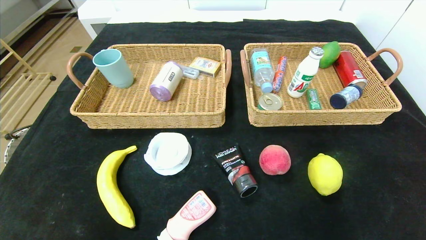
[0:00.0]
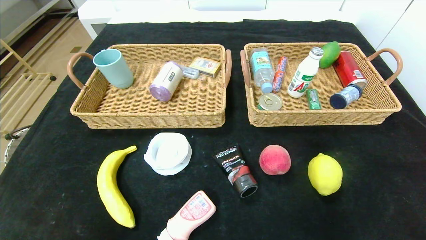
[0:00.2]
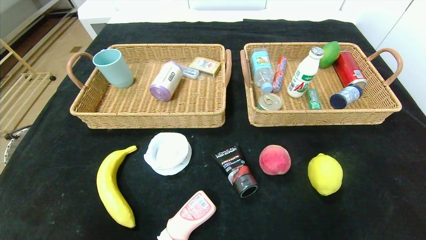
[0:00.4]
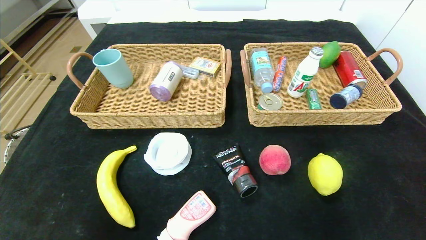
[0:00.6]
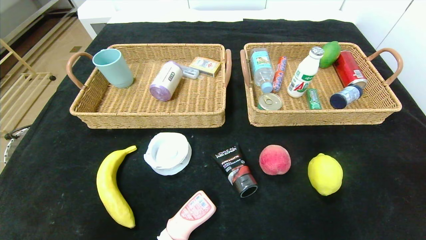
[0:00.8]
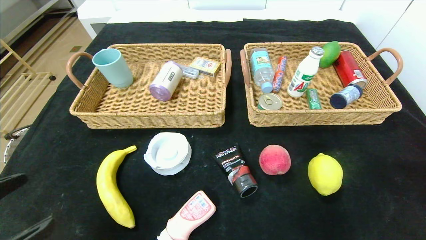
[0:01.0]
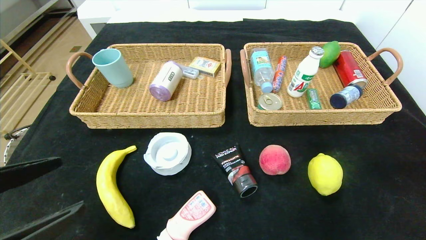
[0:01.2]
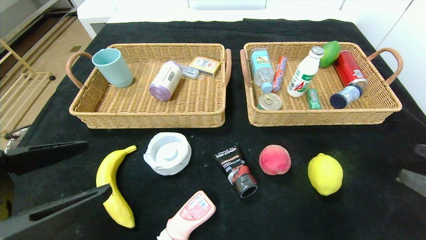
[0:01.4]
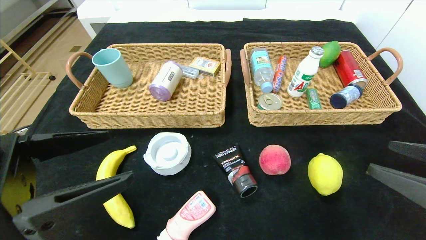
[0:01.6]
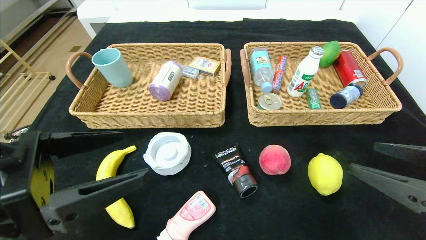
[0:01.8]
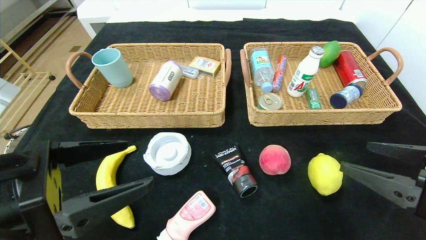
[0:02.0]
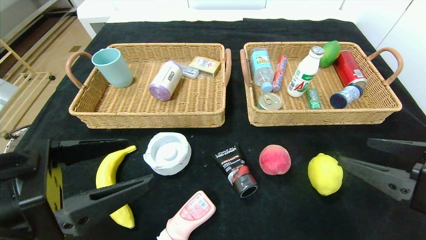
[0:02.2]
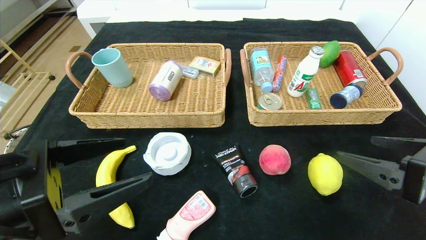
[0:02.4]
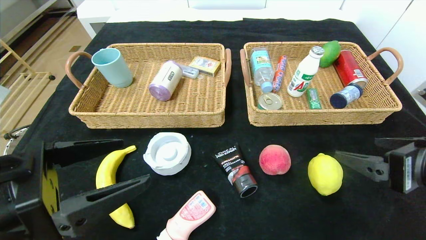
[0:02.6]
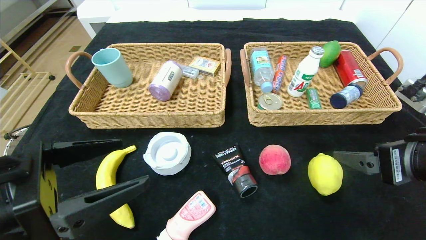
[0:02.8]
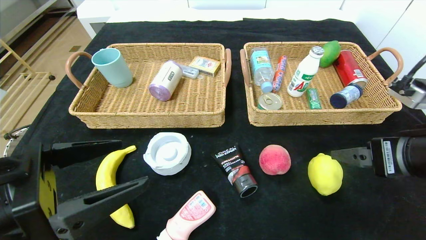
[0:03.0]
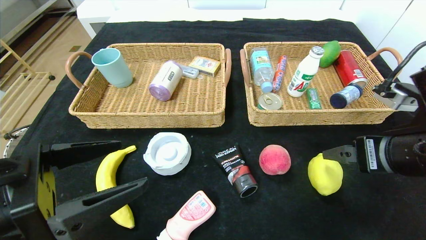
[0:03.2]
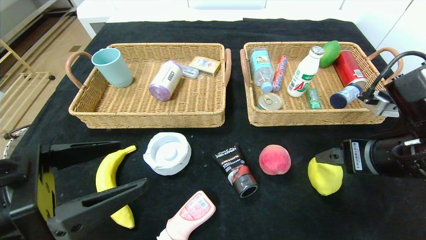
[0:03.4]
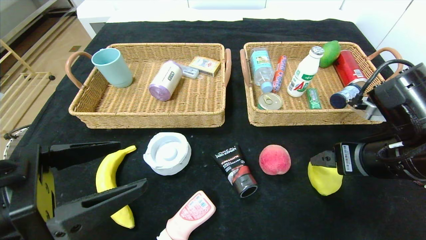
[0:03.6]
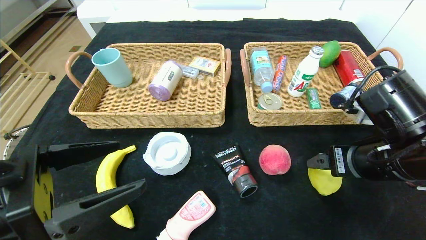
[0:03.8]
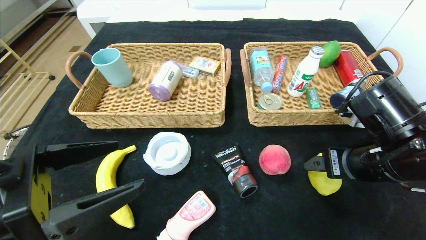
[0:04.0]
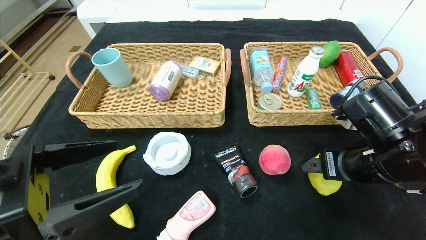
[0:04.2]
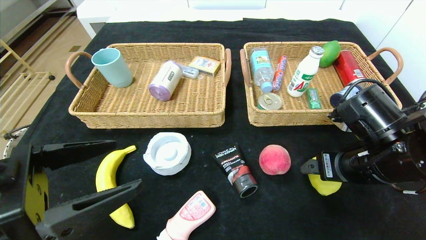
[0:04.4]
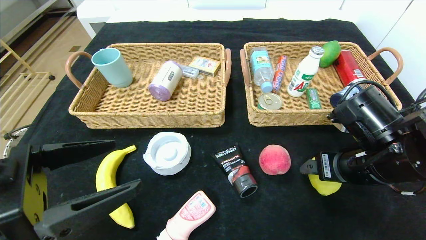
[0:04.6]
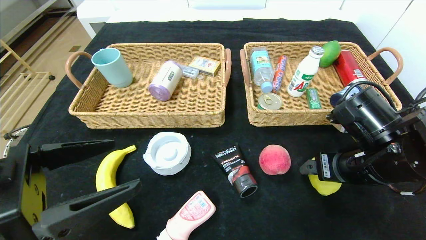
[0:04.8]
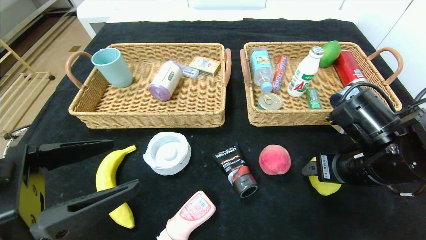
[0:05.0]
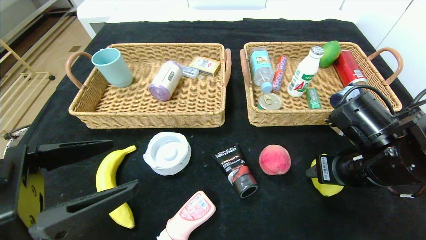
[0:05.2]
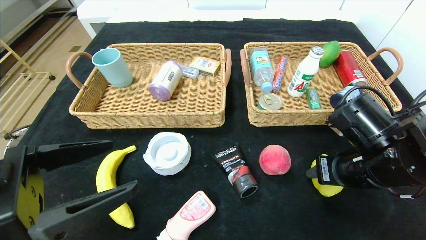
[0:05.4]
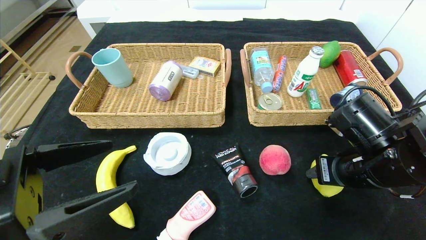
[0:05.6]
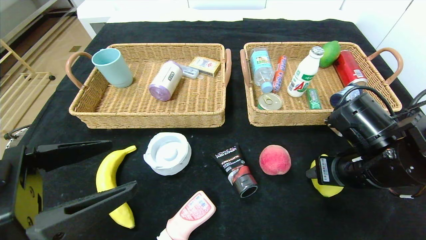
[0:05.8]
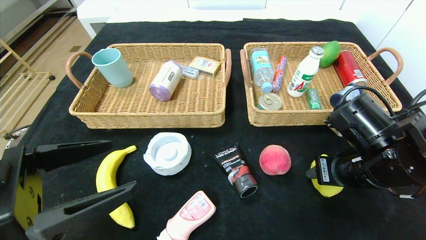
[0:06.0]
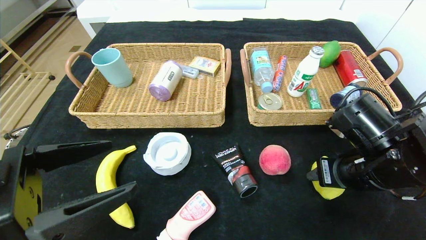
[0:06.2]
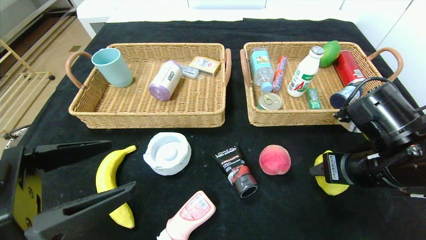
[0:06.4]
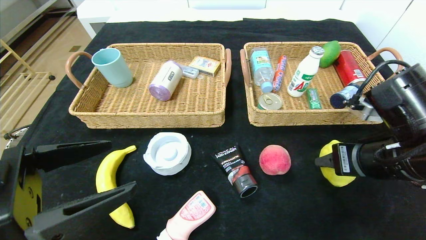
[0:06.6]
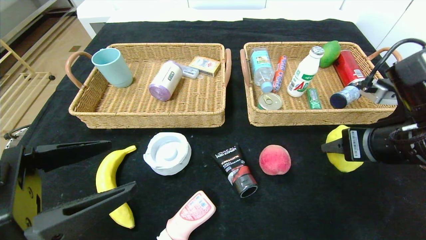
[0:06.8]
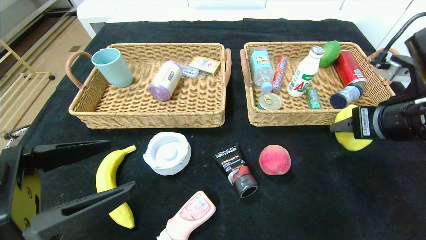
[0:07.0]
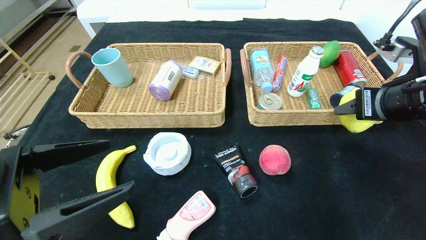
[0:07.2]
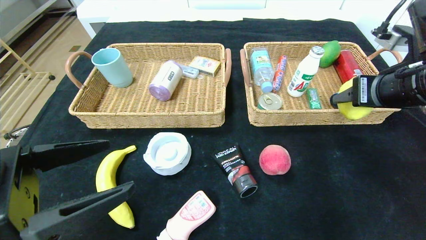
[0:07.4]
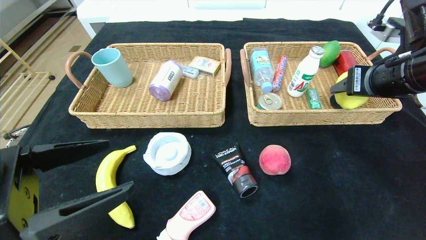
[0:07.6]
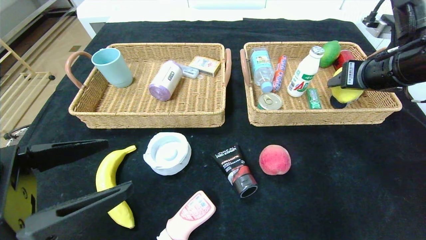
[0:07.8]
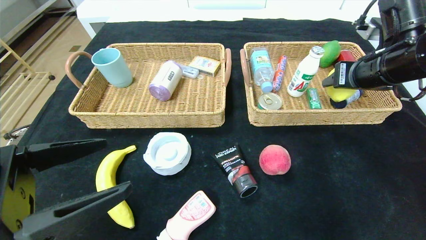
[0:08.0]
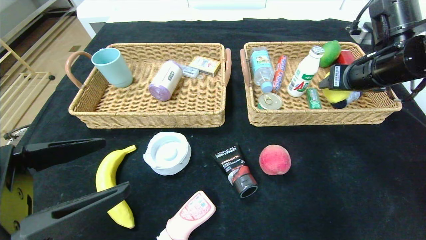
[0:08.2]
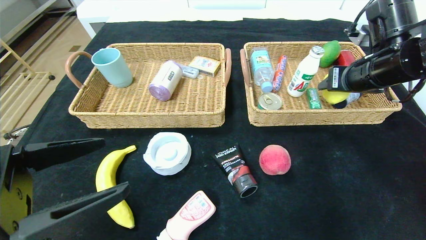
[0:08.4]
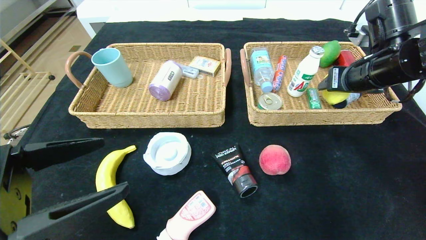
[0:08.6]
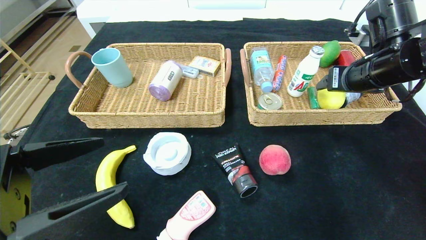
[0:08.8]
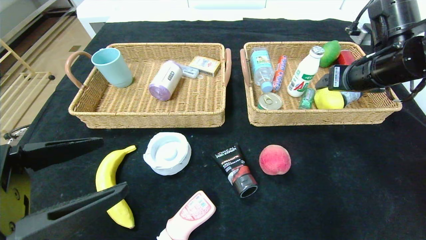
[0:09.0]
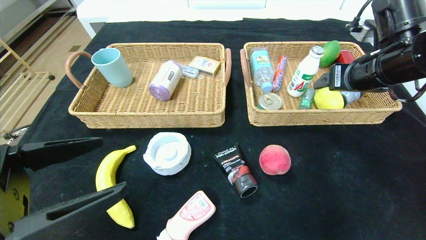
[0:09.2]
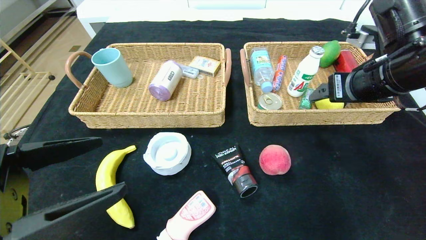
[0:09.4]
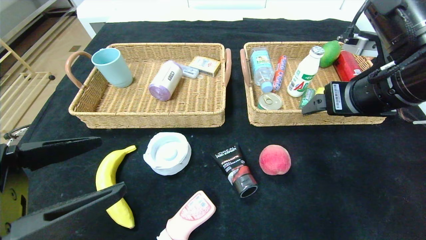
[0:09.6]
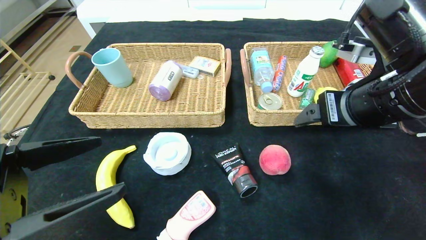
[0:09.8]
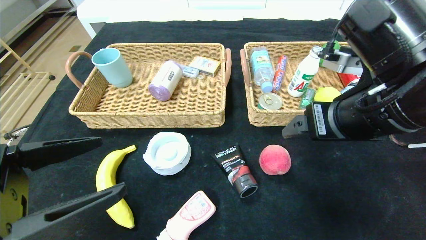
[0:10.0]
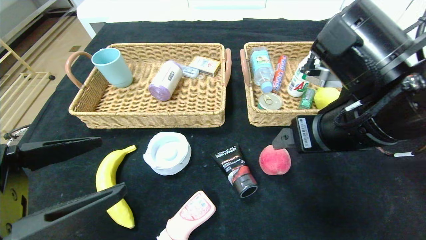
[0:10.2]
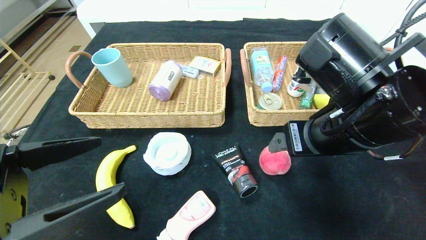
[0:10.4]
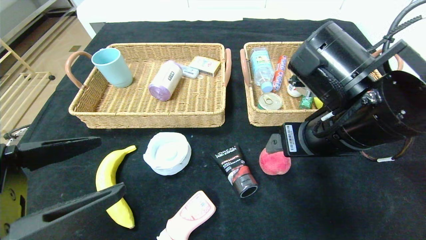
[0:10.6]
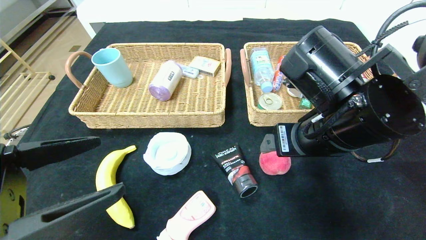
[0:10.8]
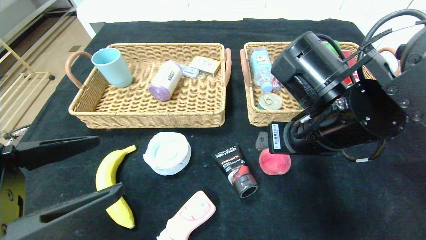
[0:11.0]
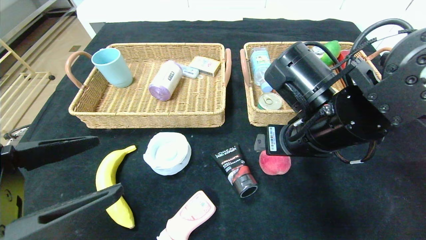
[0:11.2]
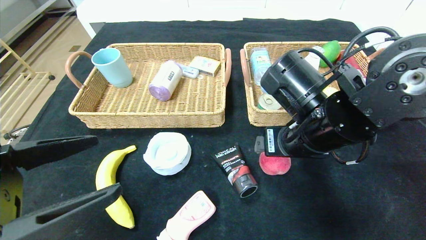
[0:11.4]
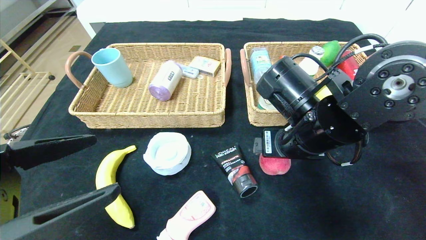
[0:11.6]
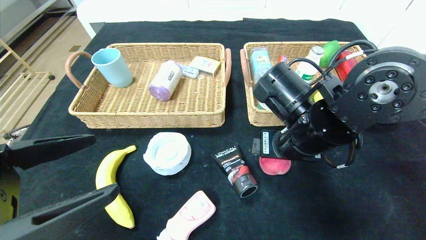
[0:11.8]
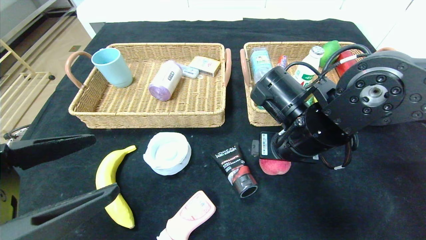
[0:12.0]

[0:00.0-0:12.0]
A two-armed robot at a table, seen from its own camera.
Step, 0:00.0 to 0:10.2: Pick up the lemon and put it in the right basket.
0:00.0 to 0:01.6: The grippers both shift upward and forward by some 20 cm.
0:01.6 to 0:03.0: The right gripper moves forward, roughly 5 cm.
0:03.0 to 0:04.4: The right gripper travels downward and forward by roughly 5 cm.
0:04.4 to 0:06.0: The right gripper closes.
0:06.0 to 0:07.6: The right gripper heads upward and forward, covering about 15 cm.
0:07.6 to 0:09.0: There are only small adjustments of the grippers.
0:09.0 to 0:10.4: The right gripper heads to the left and backward, covering about 15 cm.
0:10.4 to 0:12.0: The right gripper is displaced downward by roughly 5 cm.

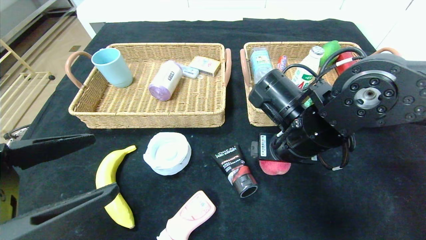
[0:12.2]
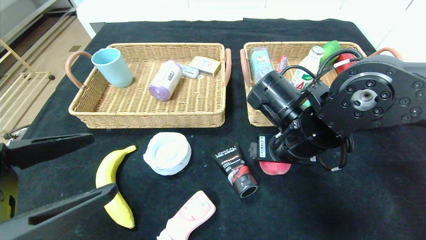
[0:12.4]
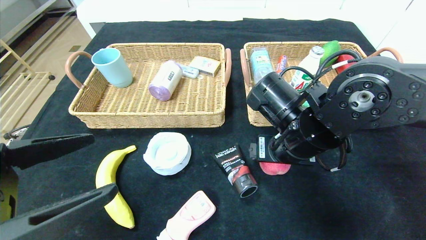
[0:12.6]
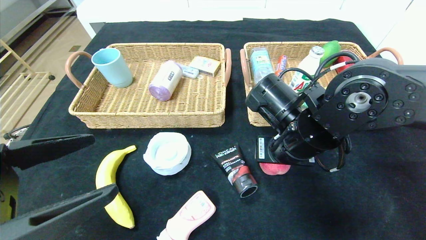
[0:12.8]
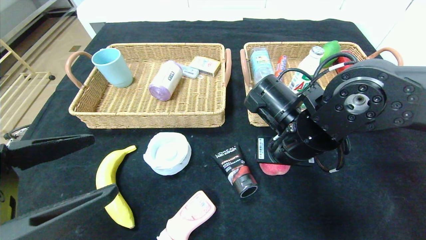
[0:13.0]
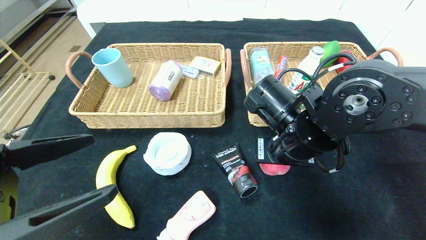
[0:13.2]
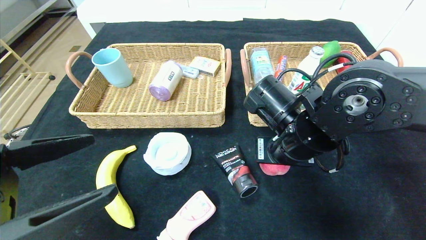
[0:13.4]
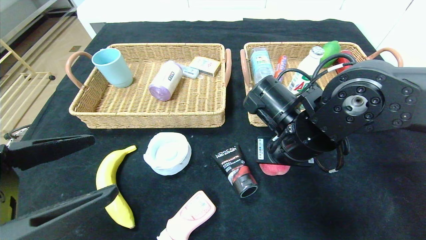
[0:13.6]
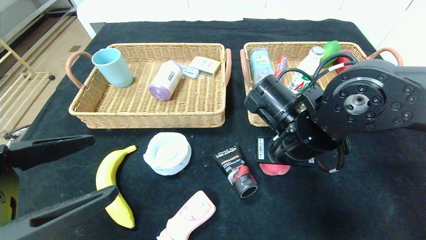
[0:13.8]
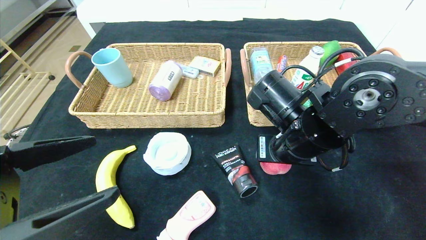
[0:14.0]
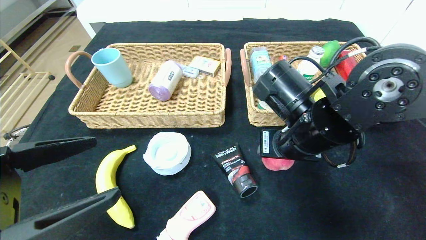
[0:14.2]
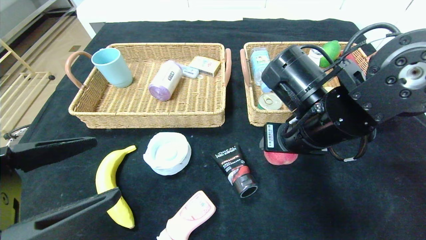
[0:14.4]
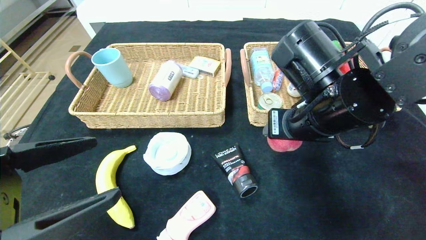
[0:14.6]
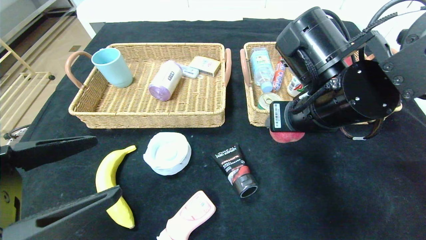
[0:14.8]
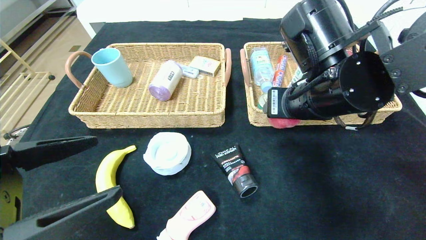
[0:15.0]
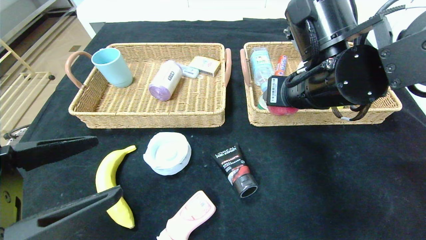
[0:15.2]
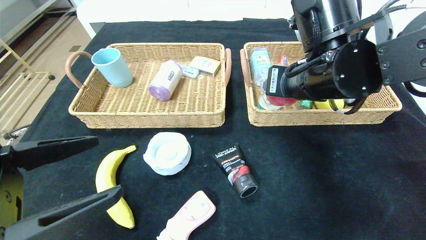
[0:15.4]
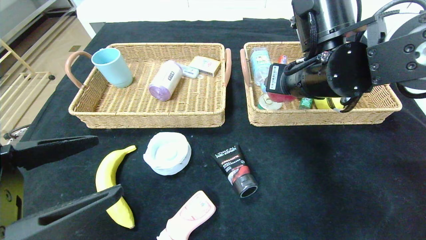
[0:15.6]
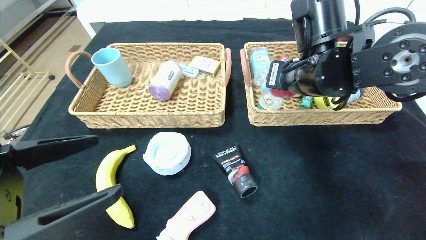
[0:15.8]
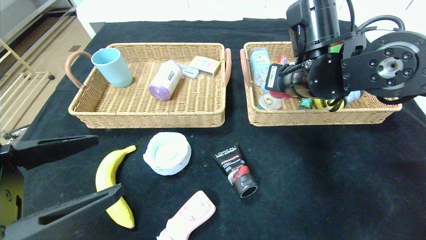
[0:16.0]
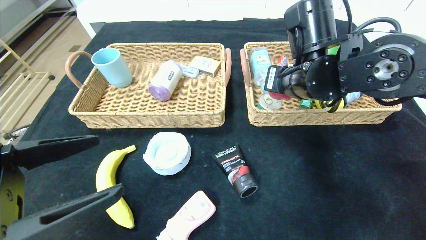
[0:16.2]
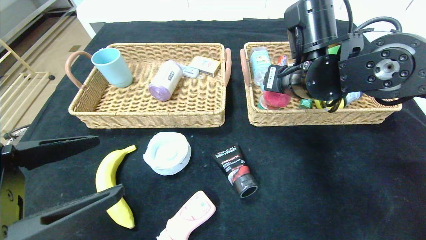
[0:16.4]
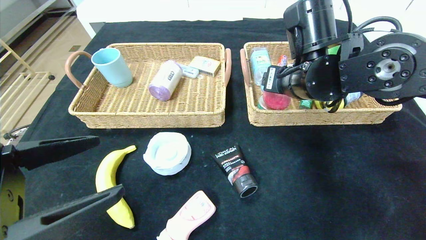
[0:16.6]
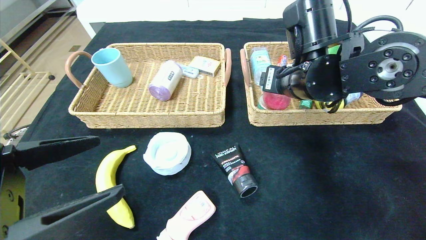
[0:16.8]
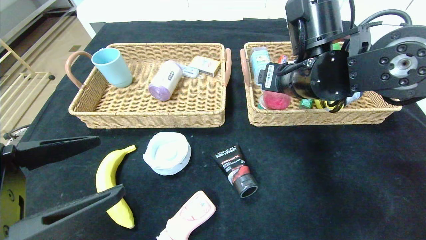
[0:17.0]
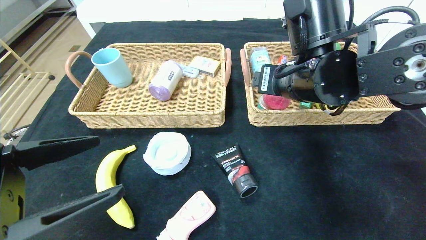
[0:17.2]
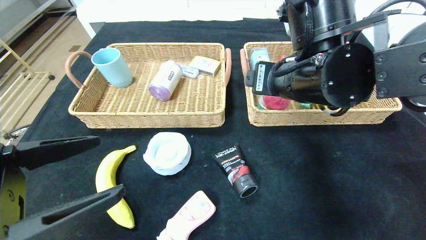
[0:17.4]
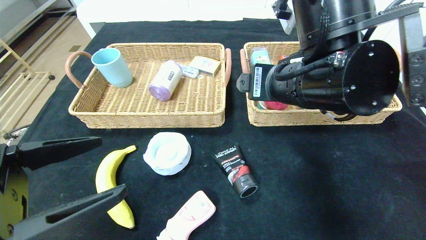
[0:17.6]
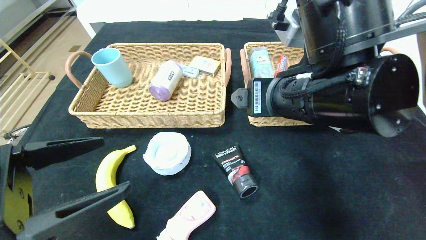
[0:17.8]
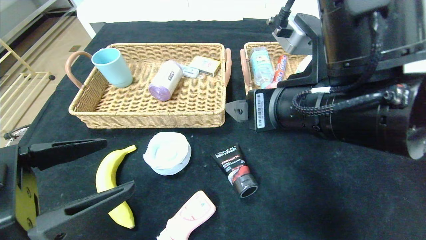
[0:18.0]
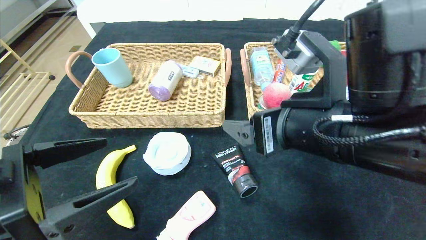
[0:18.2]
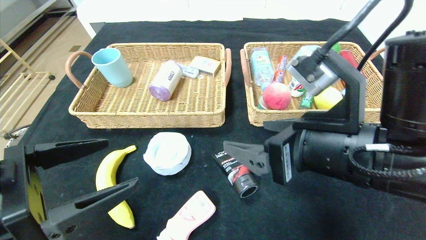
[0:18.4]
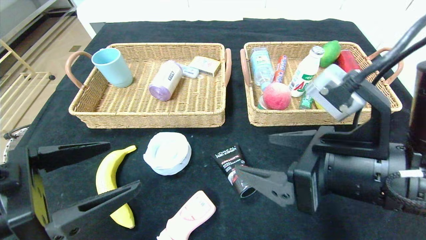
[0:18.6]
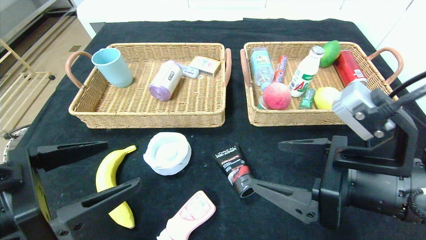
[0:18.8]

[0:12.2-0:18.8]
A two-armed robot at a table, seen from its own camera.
Step, 0:12.2 to 0:18.4: Pick up the peach and put it in the right basket.
0:12.2 to 0:13.8: The right gripper closes.
0:13.8 to 0:15.4: The right gripper shifts roughly 10 cm upward.
0:15.4 to 0:17.2: The right gripper opens up.
0:17.2 to 0:18.8: The right gripper is displaced backward, downward and to the right by roughly 15 cm.
